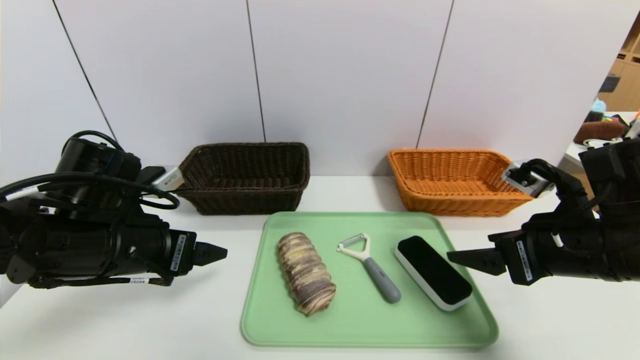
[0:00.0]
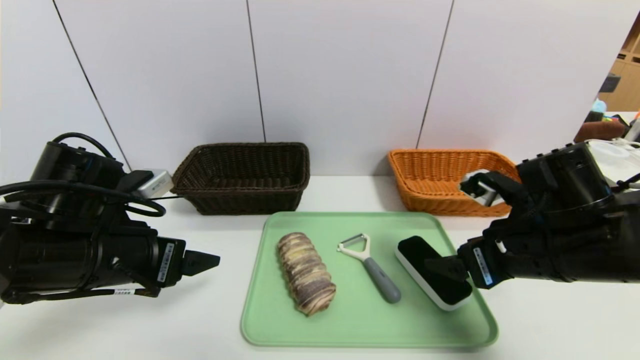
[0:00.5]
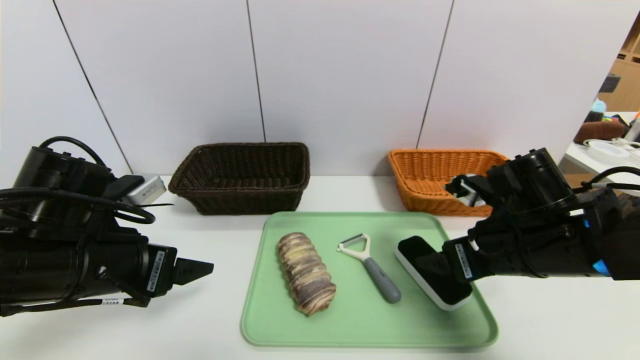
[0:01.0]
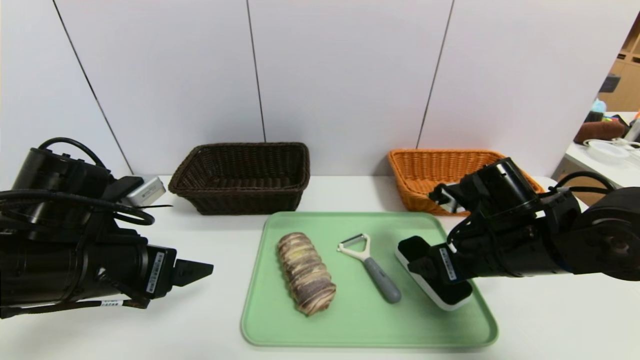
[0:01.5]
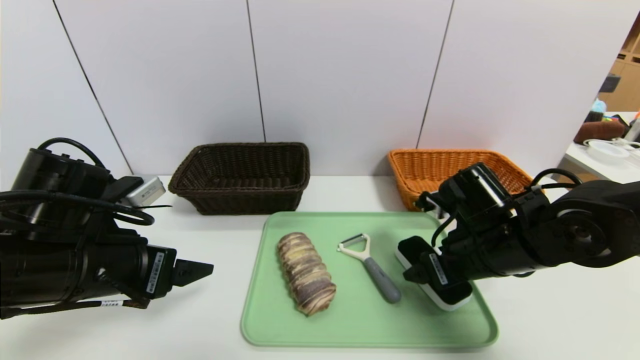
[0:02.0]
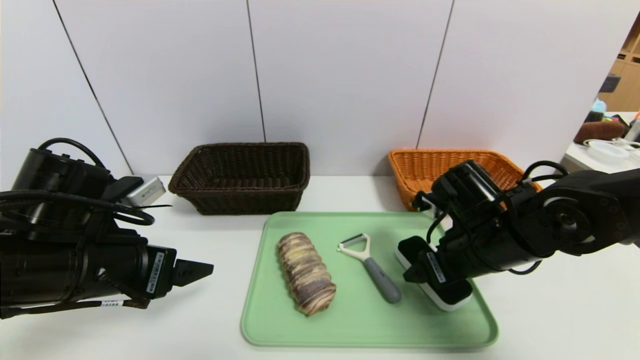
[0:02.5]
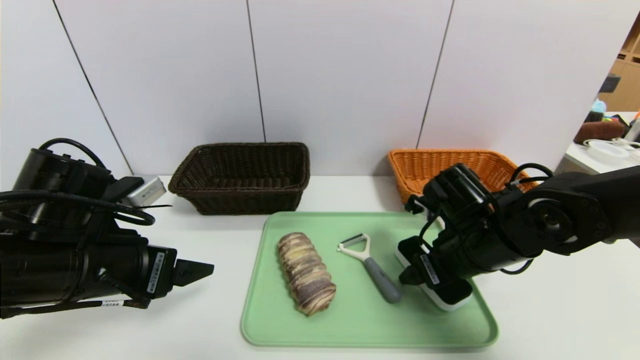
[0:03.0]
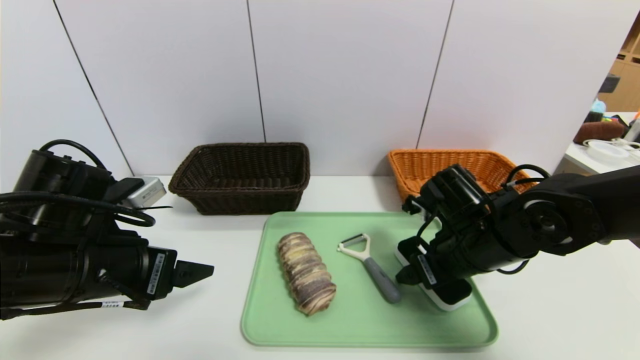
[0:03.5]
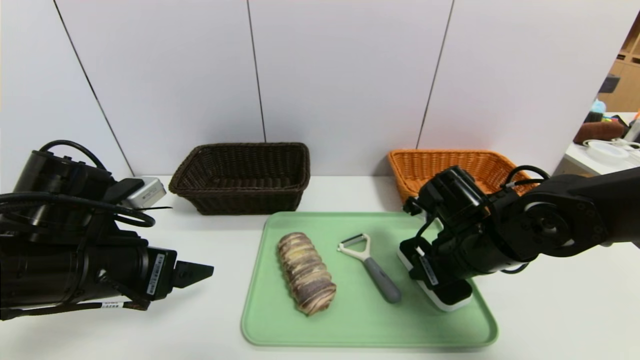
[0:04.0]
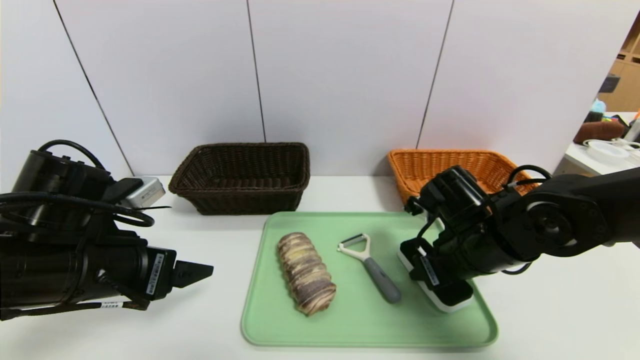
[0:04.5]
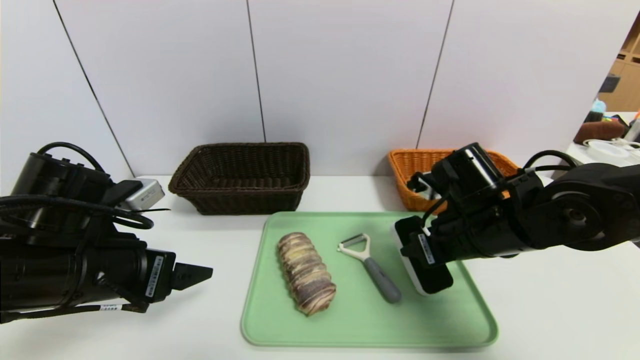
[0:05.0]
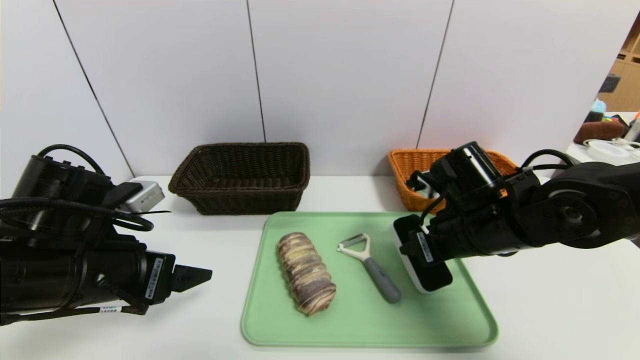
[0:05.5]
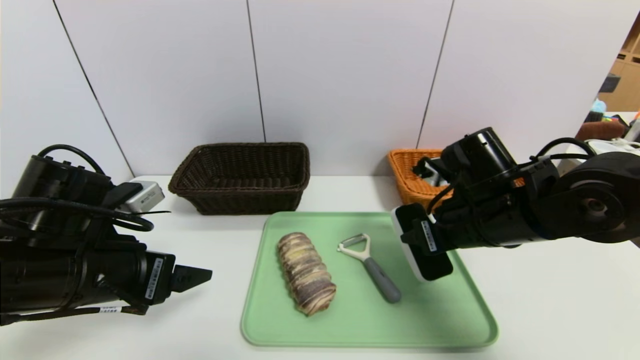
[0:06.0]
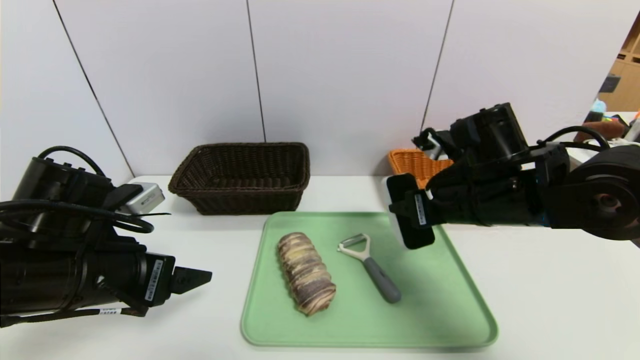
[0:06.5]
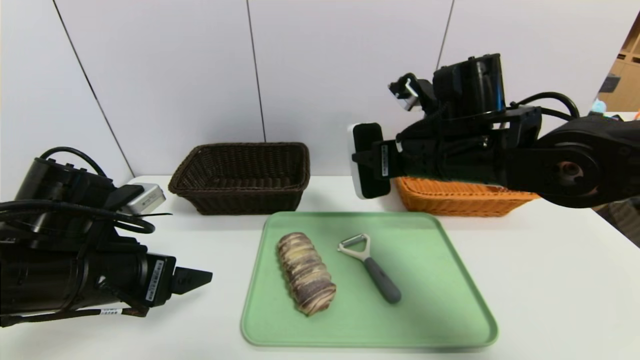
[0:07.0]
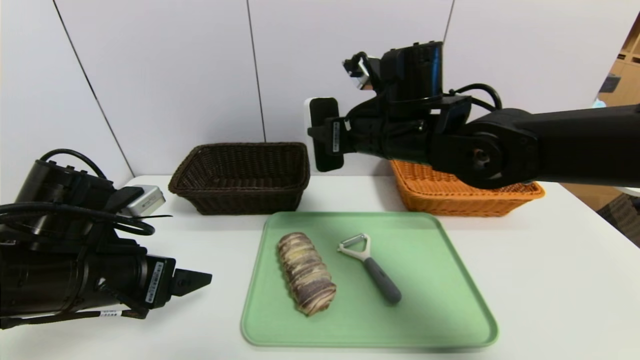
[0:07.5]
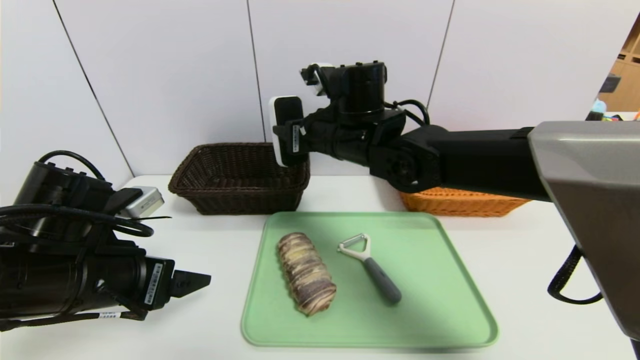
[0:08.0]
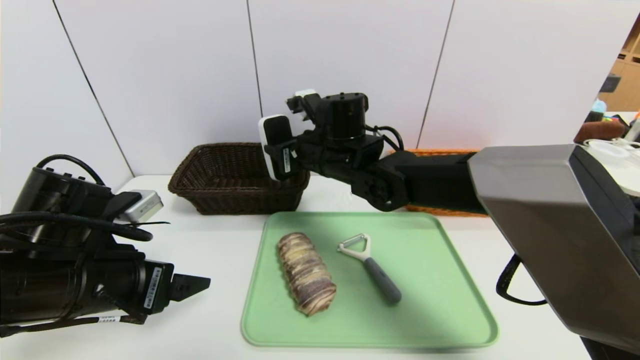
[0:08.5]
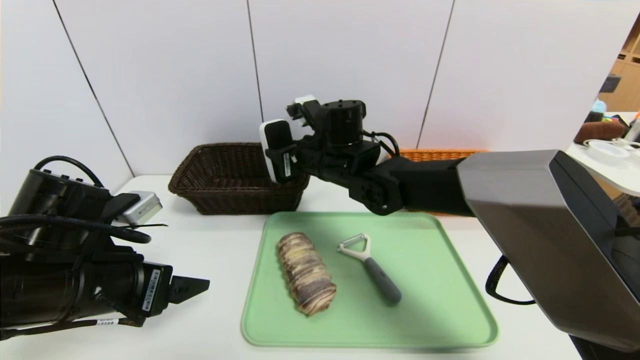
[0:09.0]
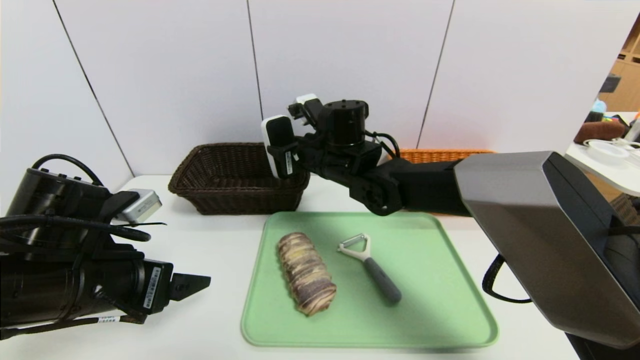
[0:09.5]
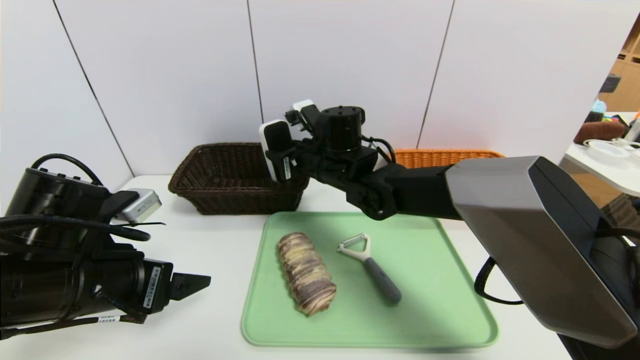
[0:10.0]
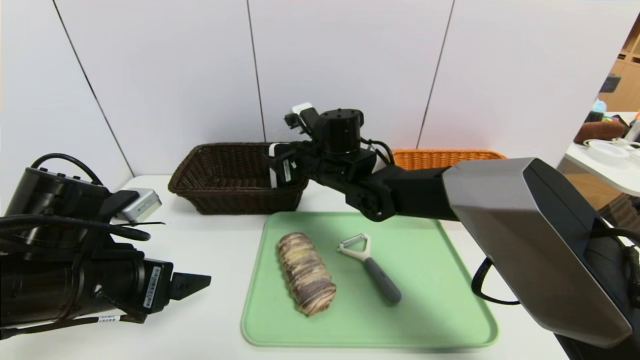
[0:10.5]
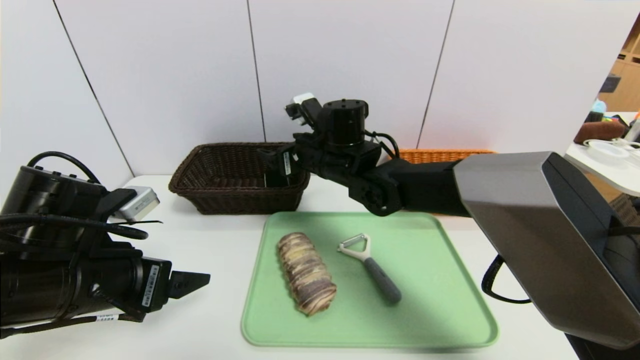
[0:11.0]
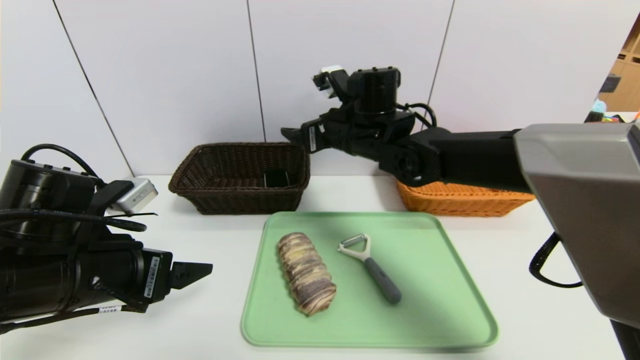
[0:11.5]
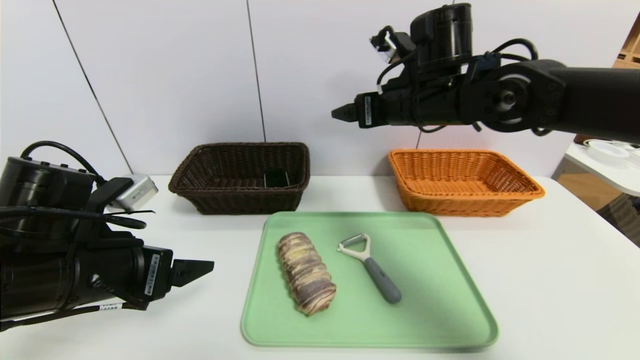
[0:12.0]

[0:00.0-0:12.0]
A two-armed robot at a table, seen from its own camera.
Task of the whole recording: place the food in the right basket with the right gripper, and place the non food items in the left basket with the left gripper.
0:00.0 to 0:02.0: The right gripper goes about 10 cm to the left, downward and forward.
0:02.0 to 0:04.0: The right gripper closes its fingers.
0:04.0 to 0:06.0: There are only small adjustments of the grippers.
0:06.0 to 0:08.0: The right gripper is displaced to the left, forward and upward by roughly 20 cm.
0:08.0 to 0:10.0: The right gripper shifts some 5 cm downward.
0:10.0 to 0:12.0: The right gripper heads to the right and upward, covering some 15 cm, and opens up.

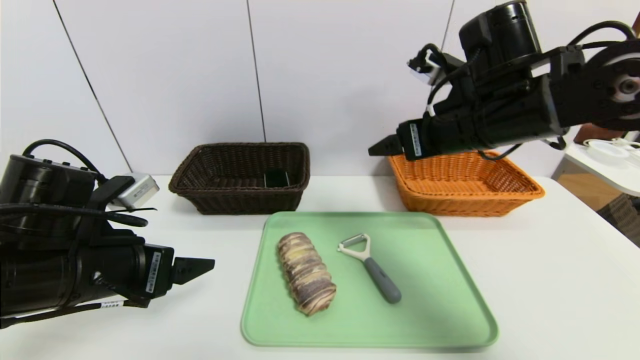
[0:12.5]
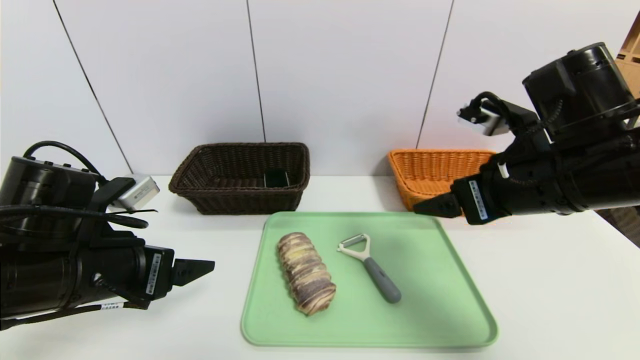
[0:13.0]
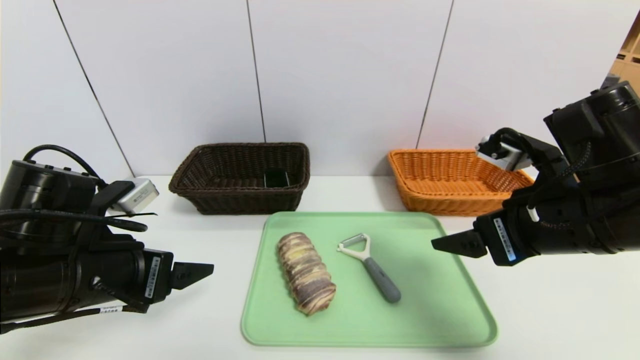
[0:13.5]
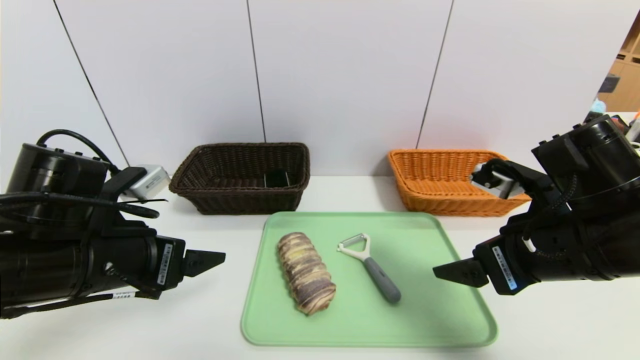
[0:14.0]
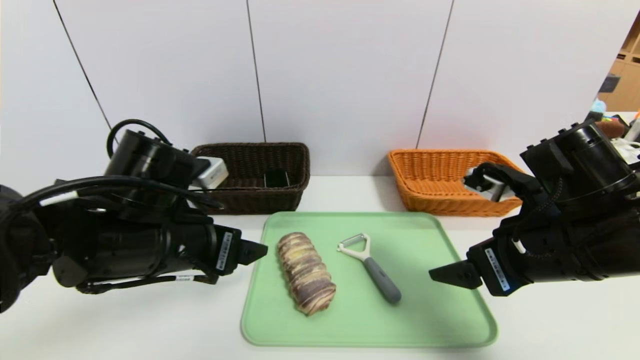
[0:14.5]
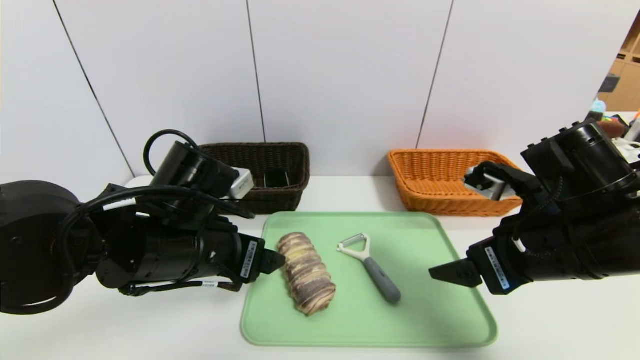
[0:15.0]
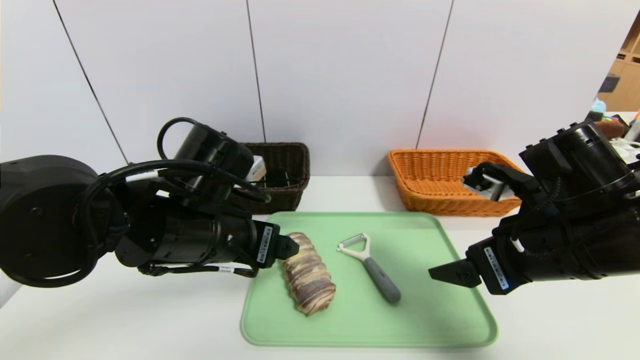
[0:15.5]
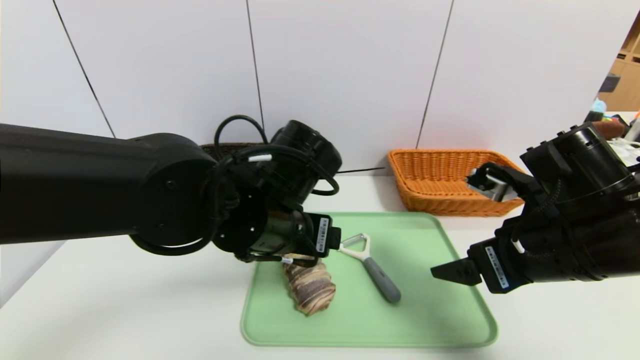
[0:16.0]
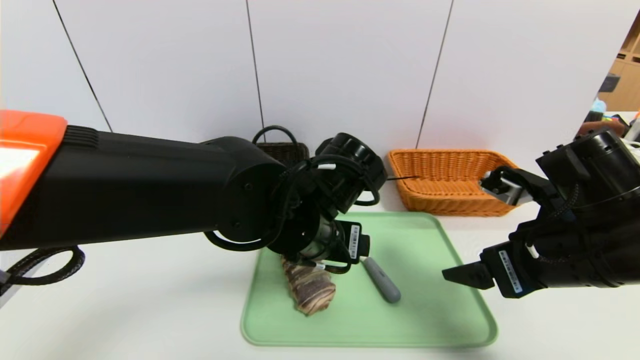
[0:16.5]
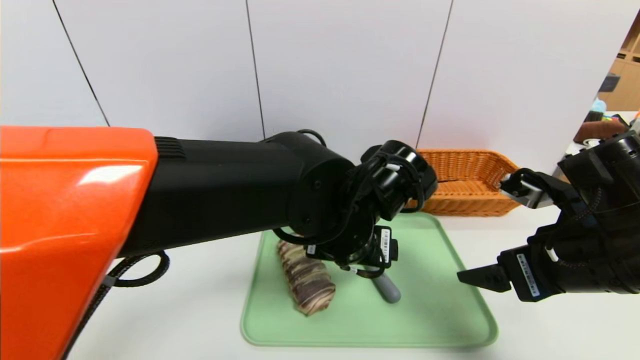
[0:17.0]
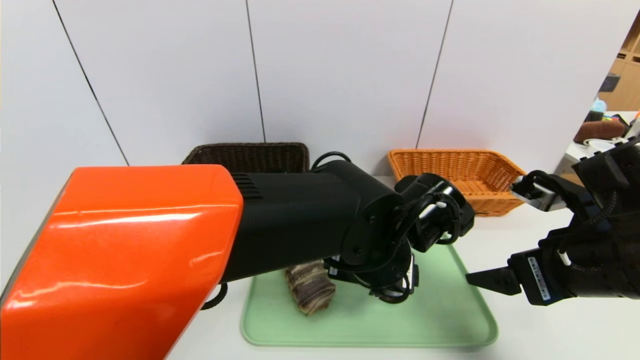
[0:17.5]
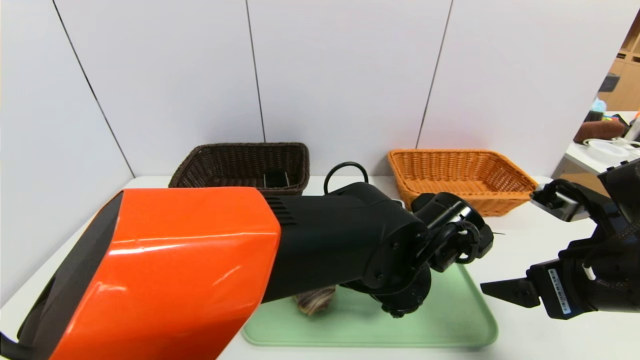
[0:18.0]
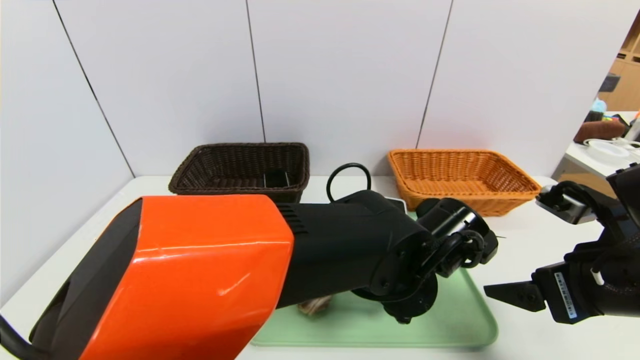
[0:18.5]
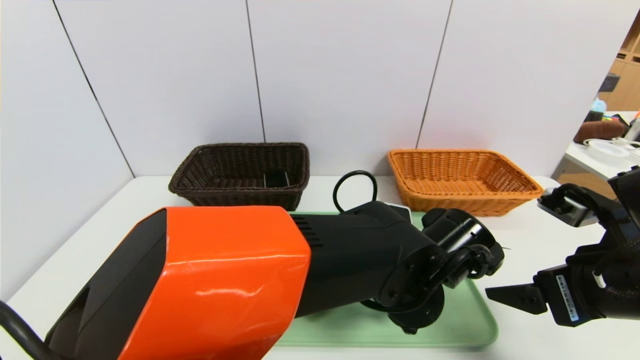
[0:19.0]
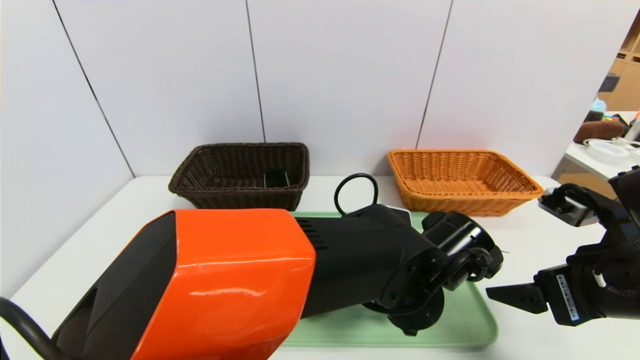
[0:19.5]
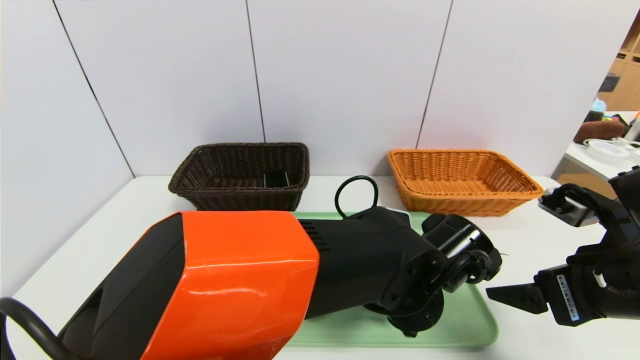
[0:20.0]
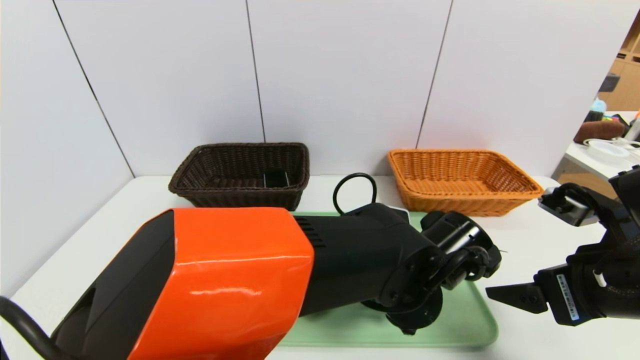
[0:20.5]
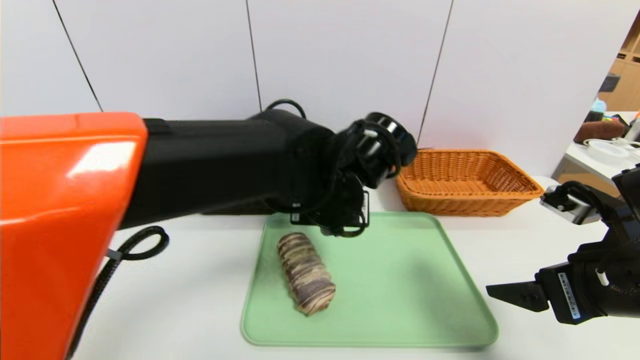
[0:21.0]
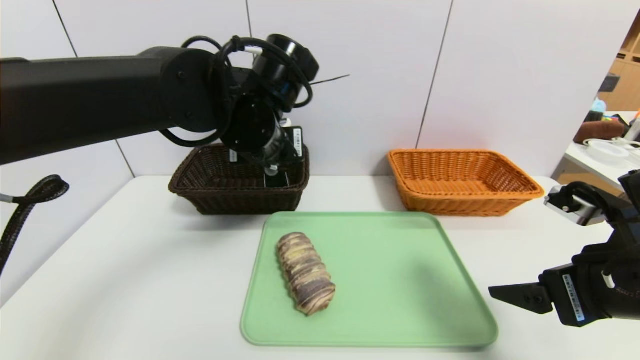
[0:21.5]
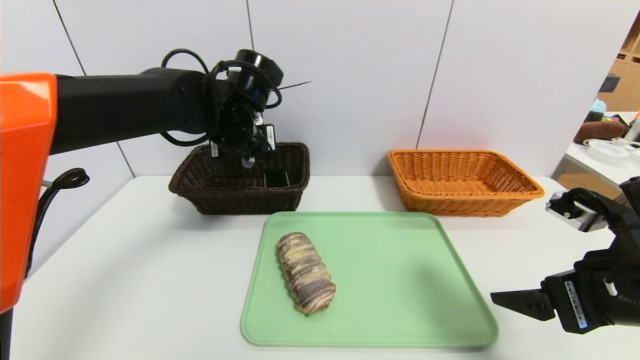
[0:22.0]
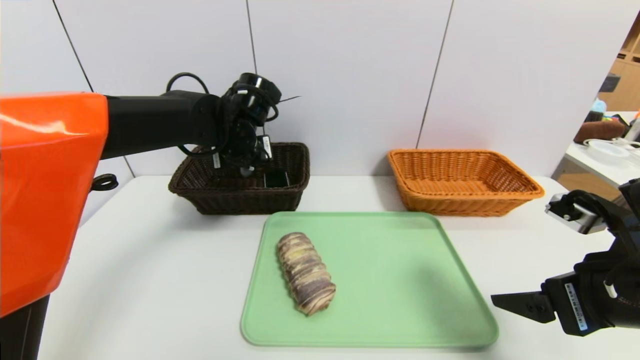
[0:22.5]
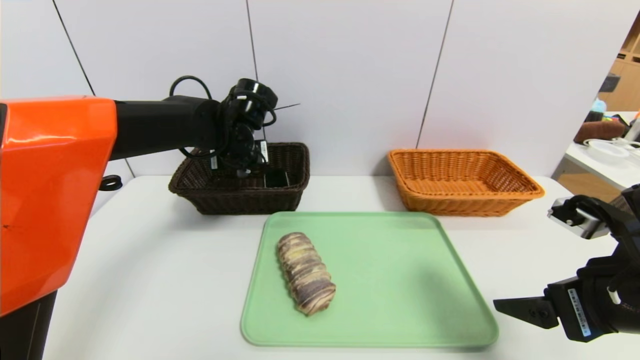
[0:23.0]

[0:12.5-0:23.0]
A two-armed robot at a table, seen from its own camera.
Task of the whole recording: place the food in the right basket with the right gripper, and place the non food items in the left basket with the left gripper.
0:12.5 to 0:14.5: The right gripper travels backward and downward by some 10 cm, while the left gripper shifts about 5 cm to the right.
0:14.5 to 0:16.5: The left gripper moves to the right, approximately 15 cm.
0:16.5 to 0:19.0: The left gripper travels to the right and downward by roughly 10 cm. The right gripper shifts by some 5 cm.
0:19.0 to 0:21.0: The left gripper heads upward, to the left and forward, covering about 15 cm, and closes its fingers.
0:21.0 to 0:23.0: The left gripper shifts approximately 20 cm to the left and forward.
